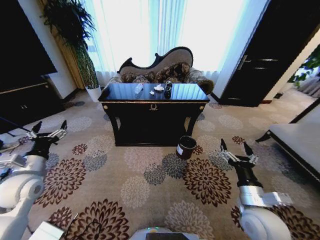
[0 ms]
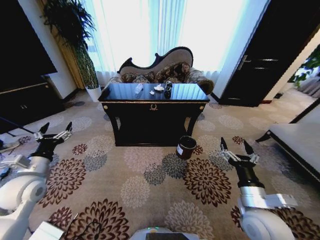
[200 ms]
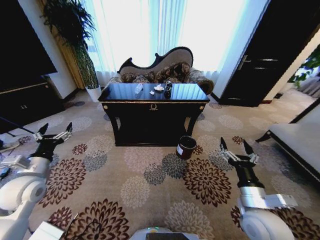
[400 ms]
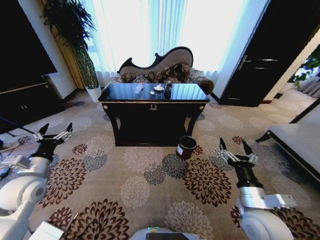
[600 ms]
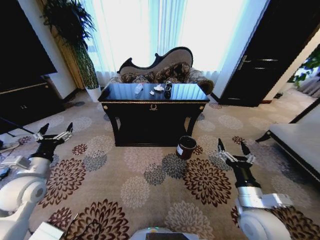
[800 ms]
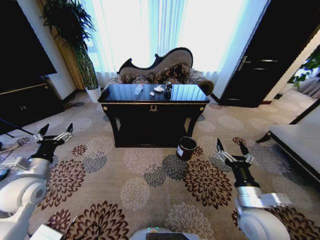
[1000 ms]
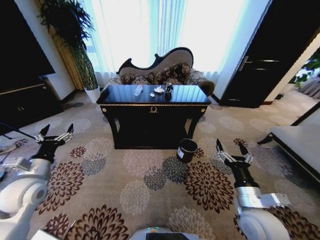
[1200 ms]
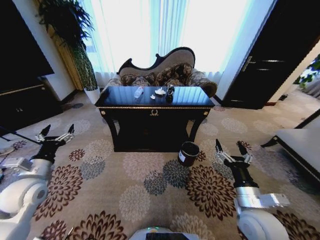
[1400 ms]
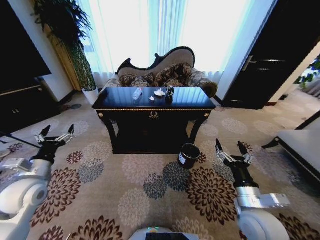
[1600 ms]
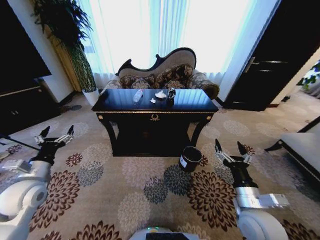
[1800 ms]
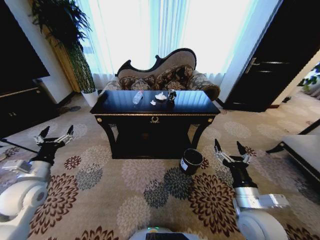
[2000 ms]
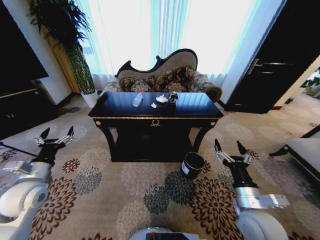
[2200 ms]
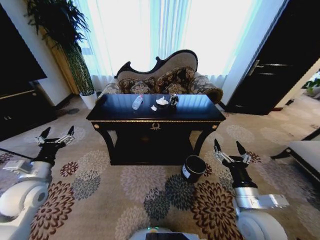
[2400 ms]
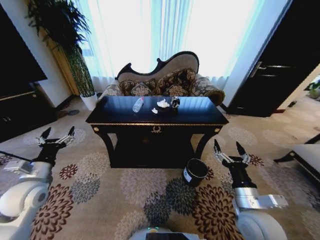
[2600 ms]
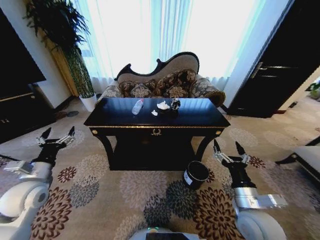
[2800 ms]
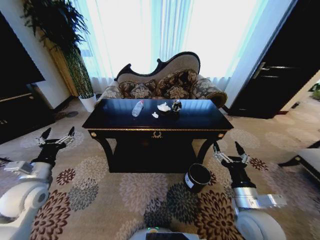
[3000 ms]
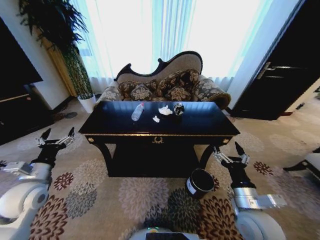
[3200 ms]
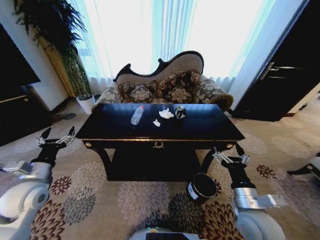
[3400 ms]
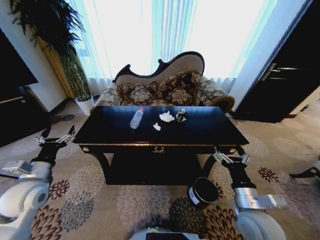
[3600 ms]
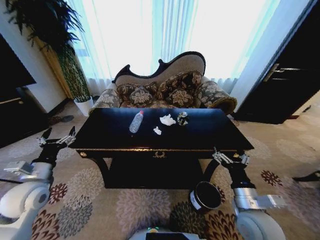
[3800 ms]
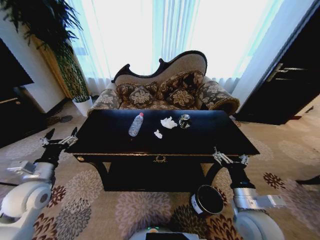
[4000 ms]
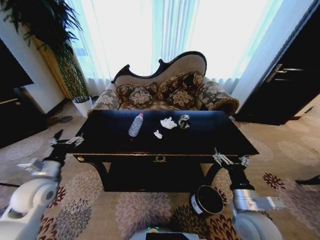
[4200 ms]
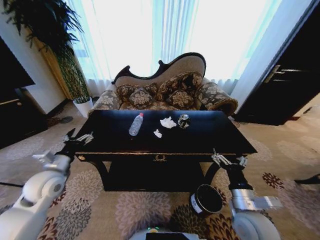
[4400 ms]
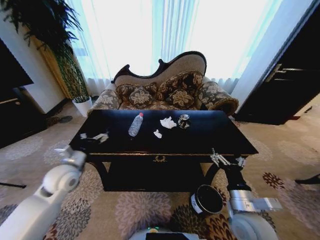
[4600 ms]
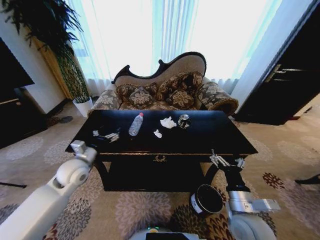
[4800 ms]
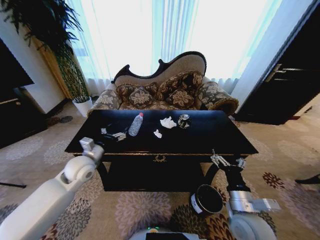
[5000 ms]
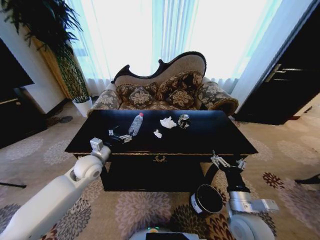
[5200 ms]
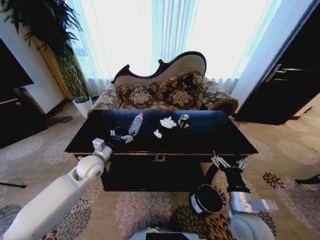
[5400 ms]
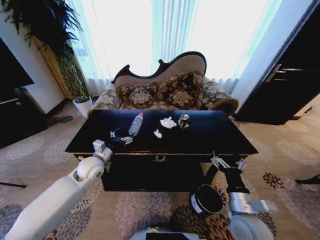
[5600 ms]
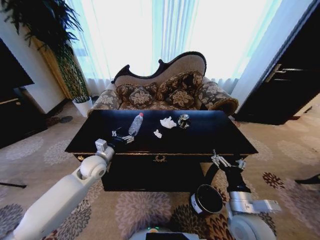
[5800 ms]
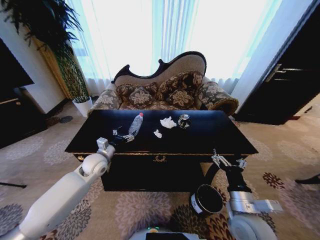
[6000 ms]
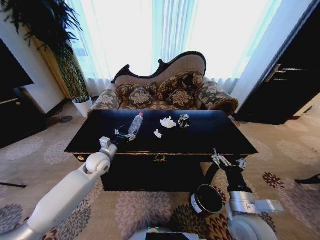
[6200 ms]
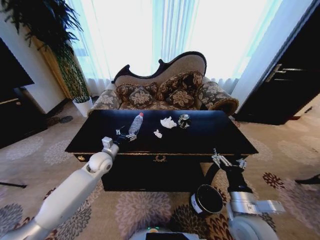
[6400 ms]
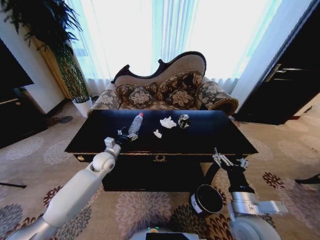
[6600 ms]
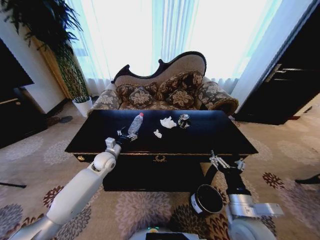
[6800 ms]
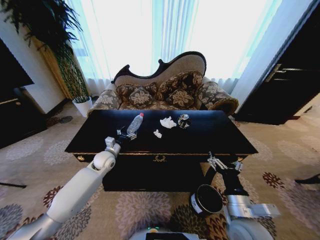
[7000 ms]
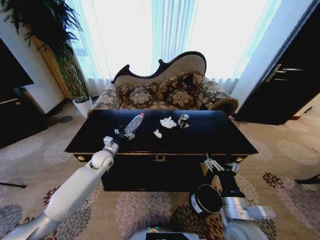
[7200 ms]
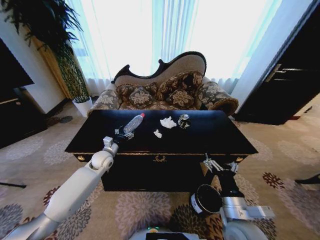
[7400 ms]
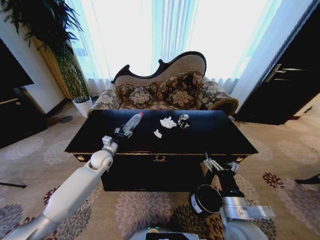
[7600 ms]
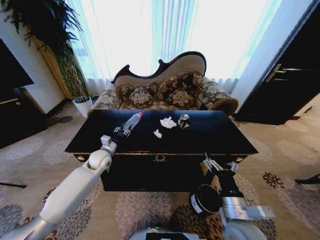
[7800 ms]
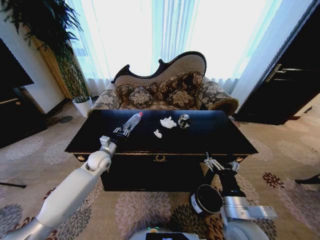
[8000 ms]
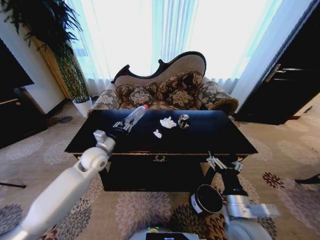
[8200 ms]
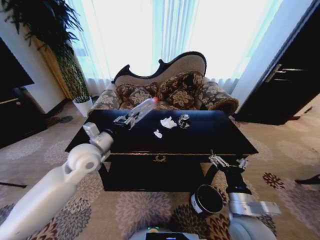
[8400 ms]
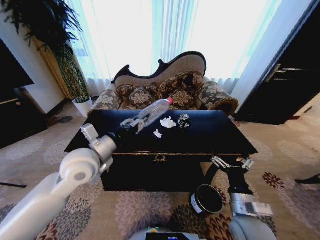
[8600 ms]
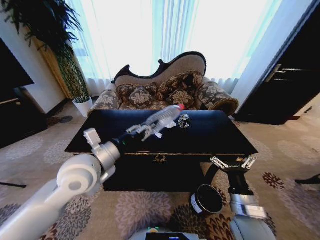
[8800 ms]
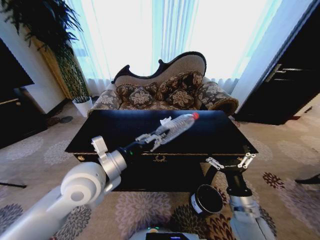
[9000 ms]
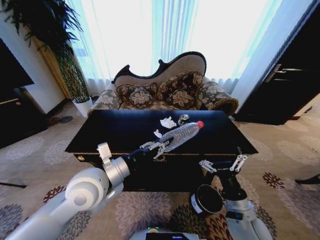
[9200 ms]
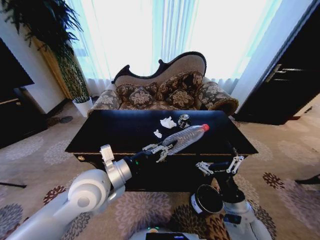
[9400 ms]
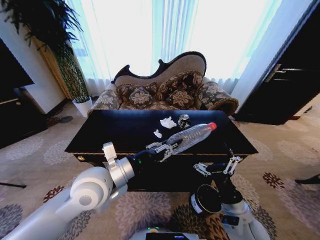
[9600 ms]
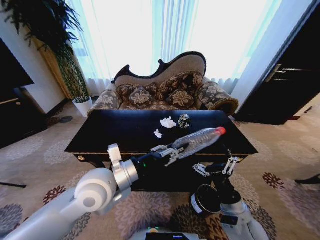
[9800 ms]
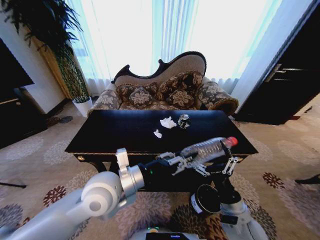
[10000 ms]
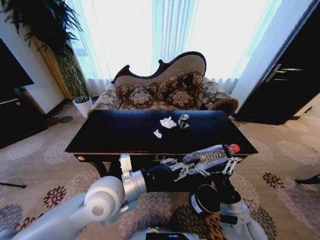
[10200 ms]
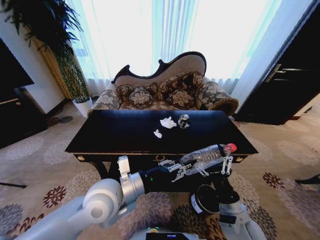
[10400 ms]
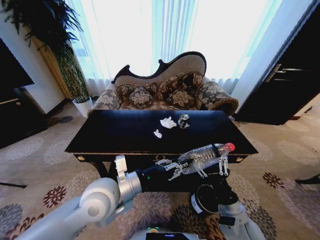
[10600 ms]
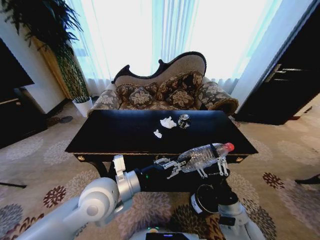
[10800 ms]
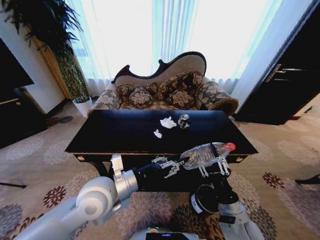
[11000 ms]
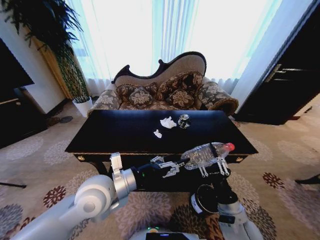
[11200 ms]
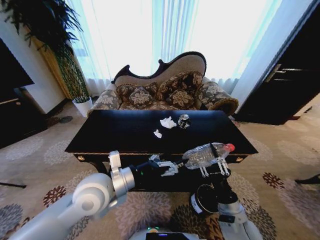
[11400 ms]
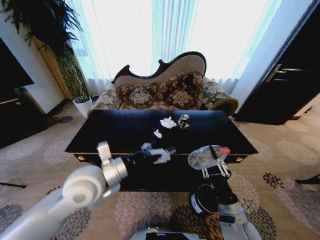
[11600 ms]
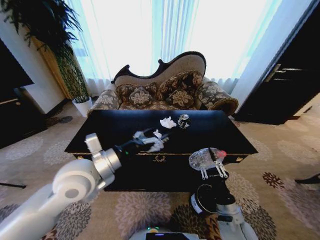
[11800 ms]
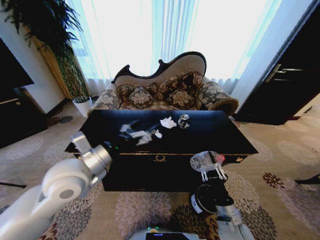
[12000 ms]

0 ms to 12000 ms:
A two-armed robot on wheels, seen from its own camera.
Task of the whole recording: Move to the front of the table and place the trash on the table into the trash bin.
3000 ms to 4400 ms: The left gripper shifts by approximately 5 cm.
4400 ms to 6000 ms: The left gripper travels to the right and forward by approximately 15 cm.
6000 ms to 7600 ms: The left gripper changes place by some 5 cm, and closes its fingers.
7600 ms to 9000 ms: The left gripper travels backward, upward and to the right by about 25 cm, and closes.
9000 ms to 10400 ms: The left gripper shifts by some 5 cm.
10400 ms to 12000 ms: The left gripper travels to the left and upward by about 10 cm, and opens its fingers. Meanwhile the right gripper shifts some 5 cm downward, and closes.

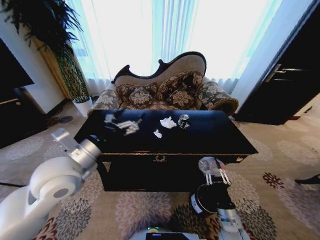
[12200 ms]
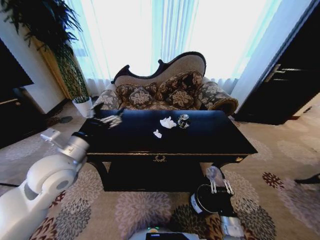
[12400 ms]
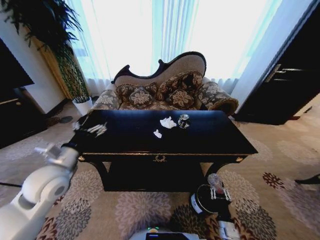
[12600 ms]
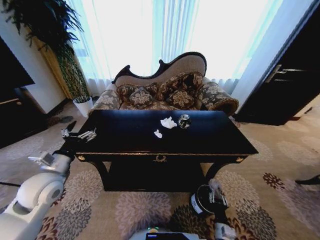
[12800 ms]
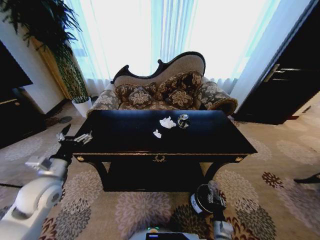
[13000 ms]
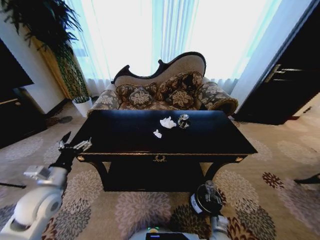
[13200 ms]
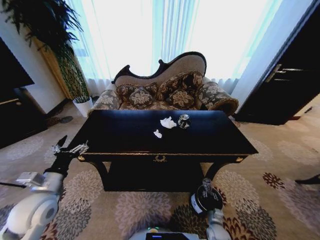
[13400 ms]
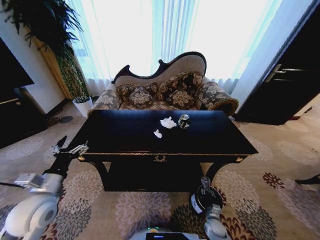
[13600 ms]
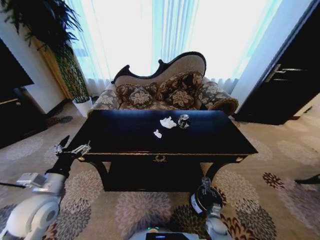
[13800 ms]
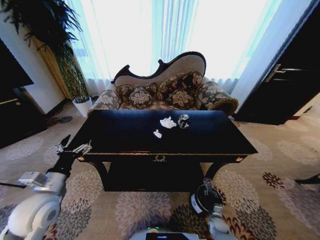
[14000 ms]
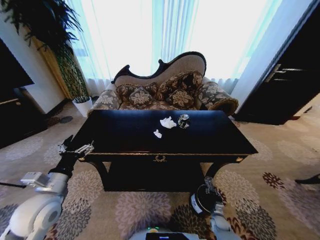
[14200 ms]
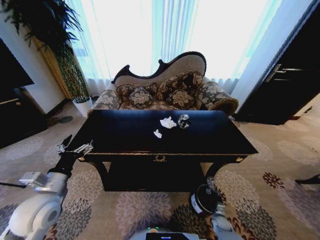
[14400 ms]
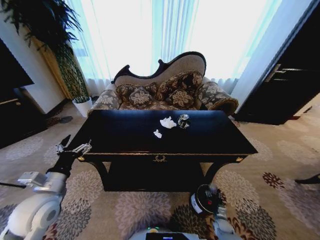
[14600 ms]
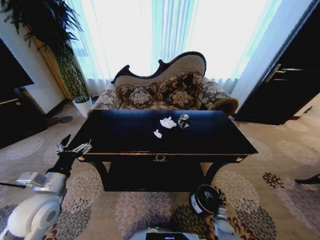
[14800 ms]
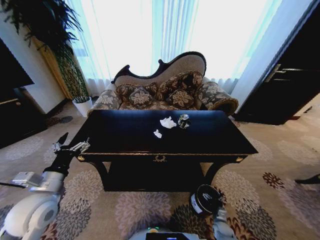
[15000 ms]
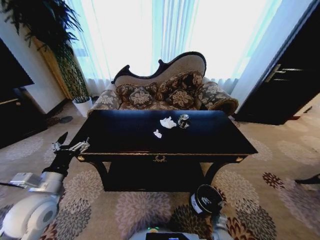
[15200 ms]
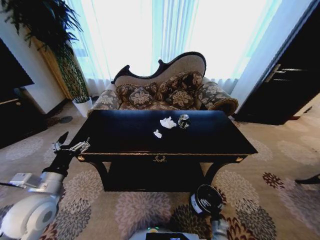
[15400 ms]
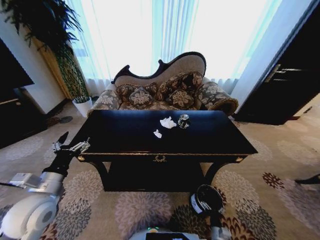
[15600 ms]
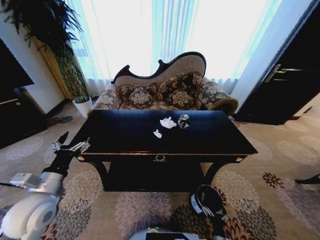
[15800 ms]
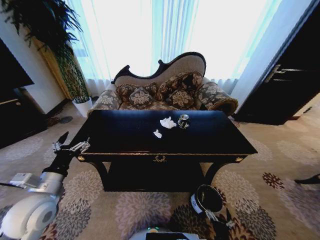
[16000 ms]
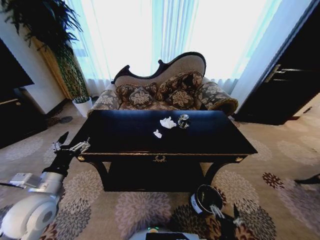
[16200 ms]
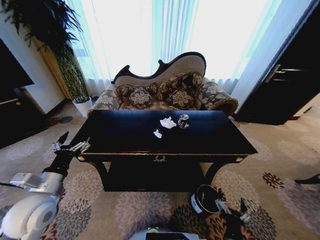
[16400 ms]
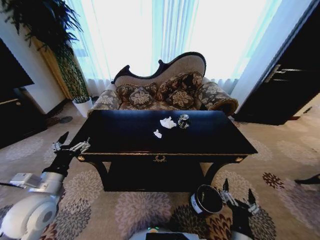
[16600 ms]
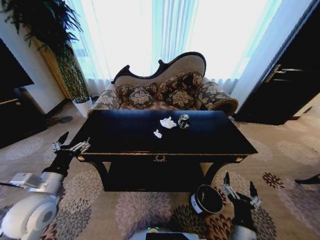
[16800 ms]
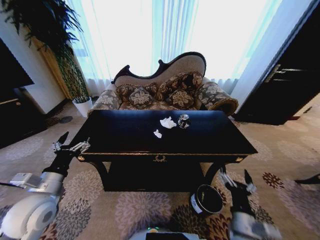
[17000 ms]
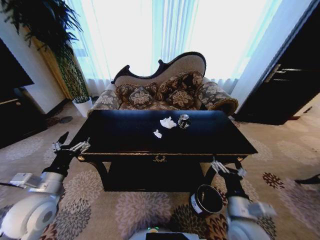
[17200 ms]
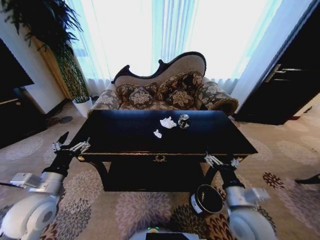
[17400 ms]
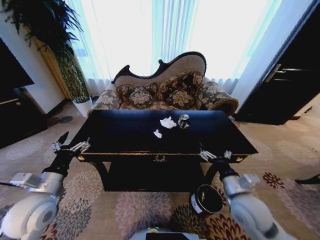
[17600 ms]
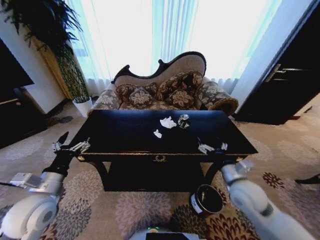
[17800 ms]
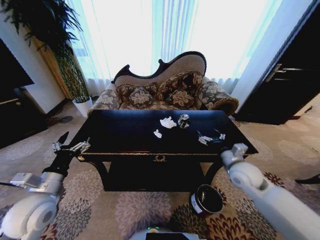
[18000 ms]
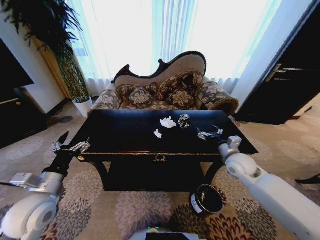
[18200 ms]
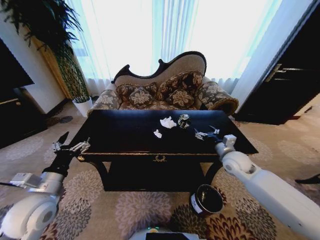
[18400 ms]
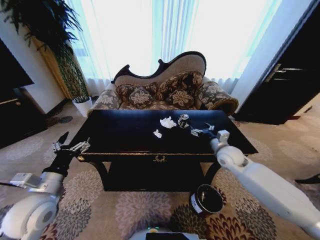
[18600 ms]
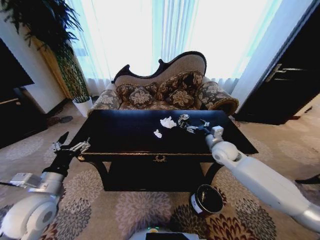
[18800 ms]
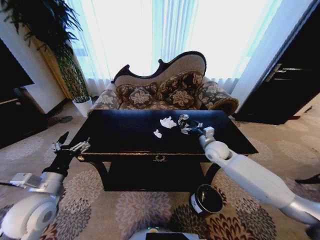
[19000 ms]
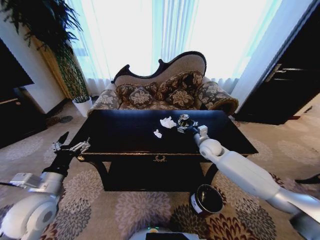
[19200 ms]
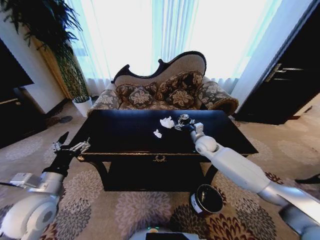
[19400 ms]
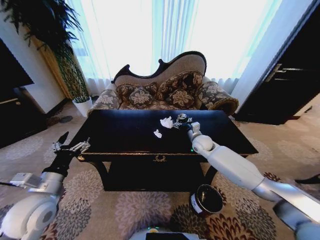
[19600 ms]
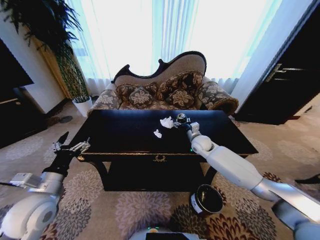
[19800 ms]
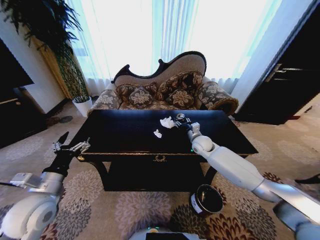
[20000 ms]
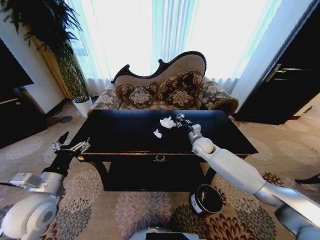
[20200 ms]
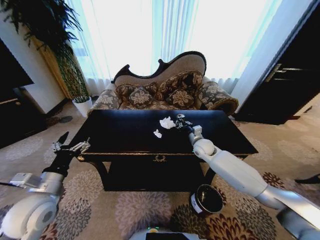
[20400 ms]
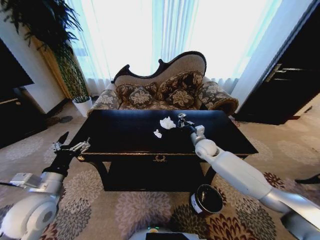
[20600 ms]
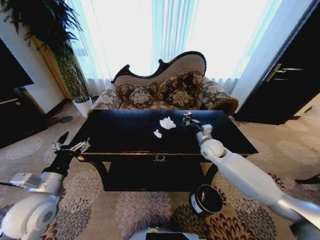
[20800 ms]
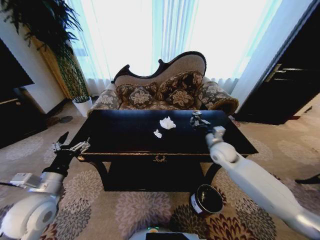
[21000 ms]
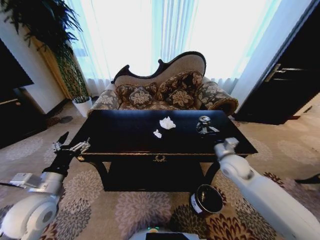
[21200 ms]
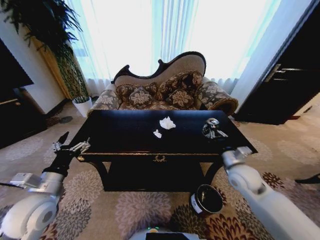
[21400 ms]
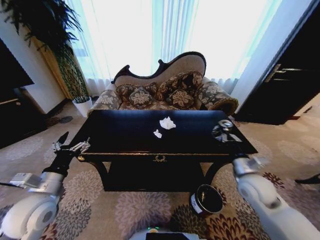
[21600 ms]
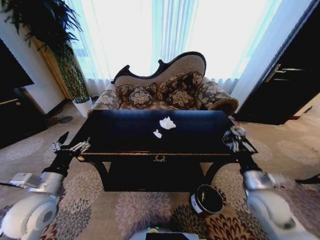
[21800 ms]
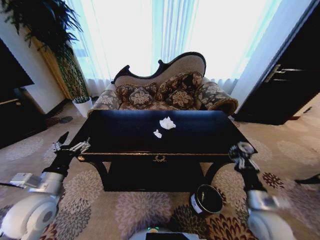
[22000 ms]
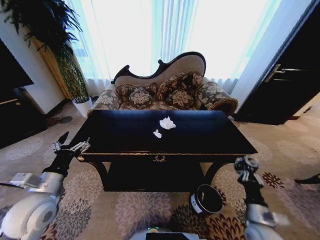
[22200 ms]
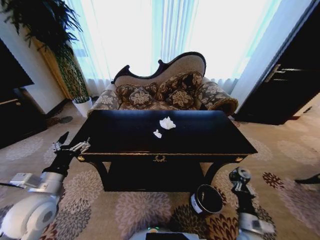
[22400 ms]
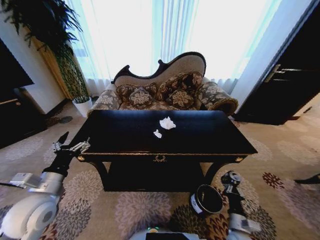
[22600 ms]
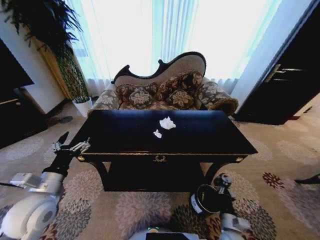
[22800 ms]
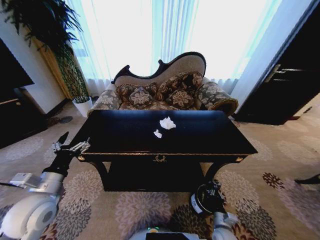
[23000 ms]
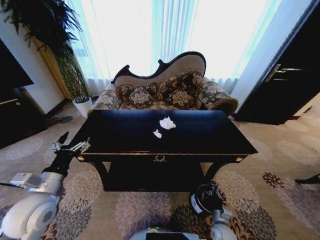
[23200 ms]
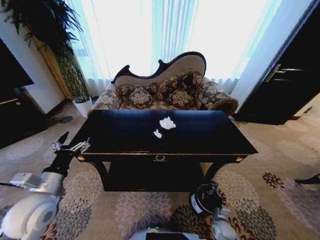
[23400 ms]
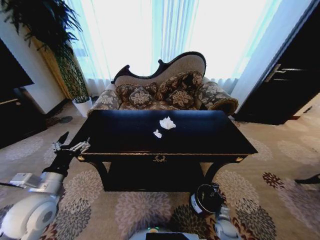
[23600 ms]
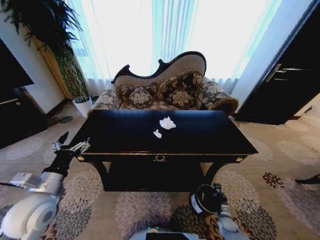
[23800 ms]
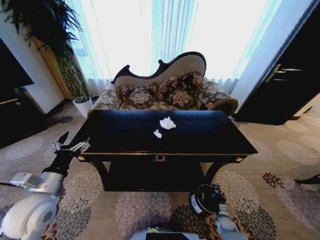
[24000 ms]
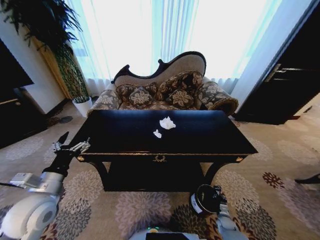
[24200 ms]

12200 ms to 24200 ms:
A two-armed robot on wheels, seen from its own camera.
Task of the whole recording: Move to the front of the table and place the trash on the table into the trash bin.
12200 ms to 13800 ms: The left gripper moves downward and to the left, approximately 15 cm. Meanwhile the right gripper shifts about 25 cm downward.
13800 ms to 15200 ms: The right gripper changes place by some 5 cm, and opens its fingers.
15200 ms to 16600 ms: The right gripper moves upward and to the left, approximately 25 cm.
16600 ms to 18200 ms: The right gripper shifts some 35 cm forward and upward.
18200 ms to 19800 ms: The right gripper is displaced forward and to the left by approximately 20 cm.
19800 ms to 21200 ms: The right gripper heads backward and to the right, covering about 15 cm, and closes up.
21200 ms to 22600 ms: The right gripper shifts about 30 cm backward and downward.
22600 ms to 24200 ms: The right gripper goes some 25 cm downward, forward and to the right.
